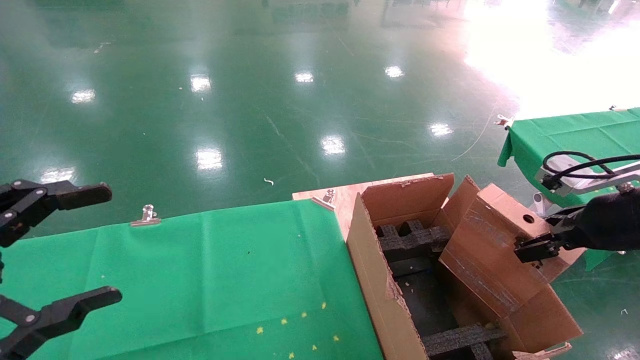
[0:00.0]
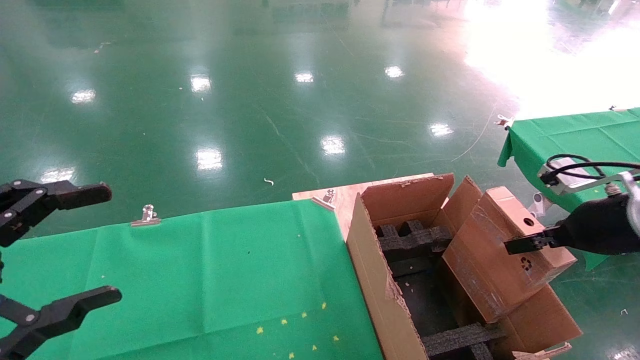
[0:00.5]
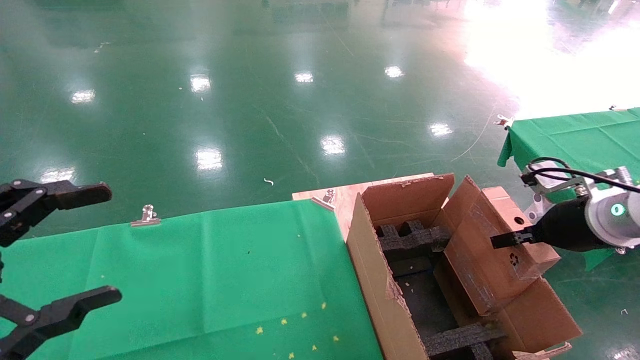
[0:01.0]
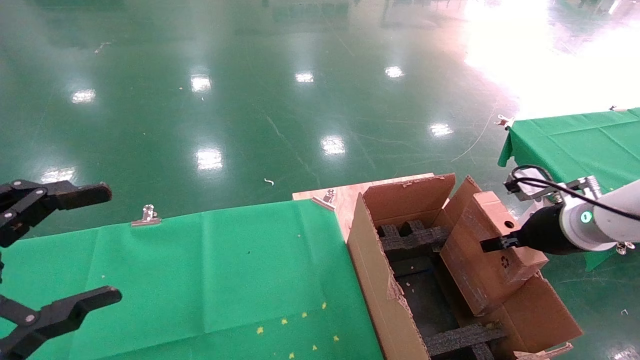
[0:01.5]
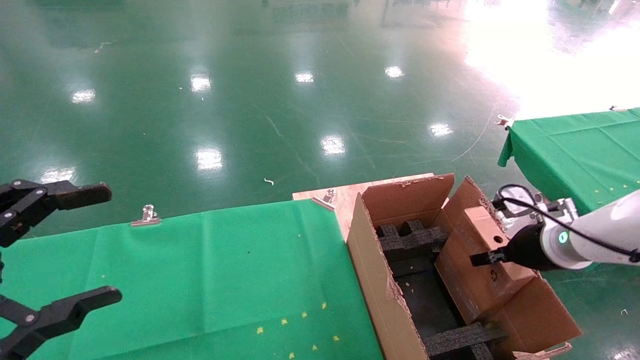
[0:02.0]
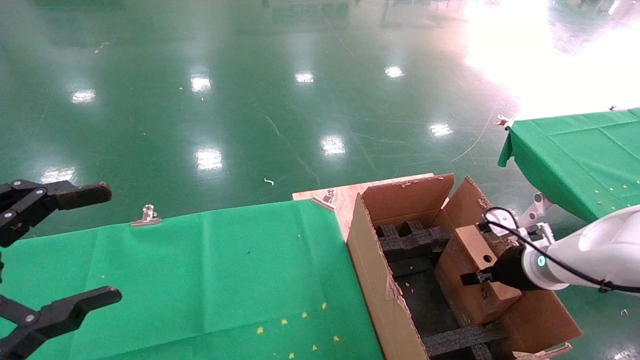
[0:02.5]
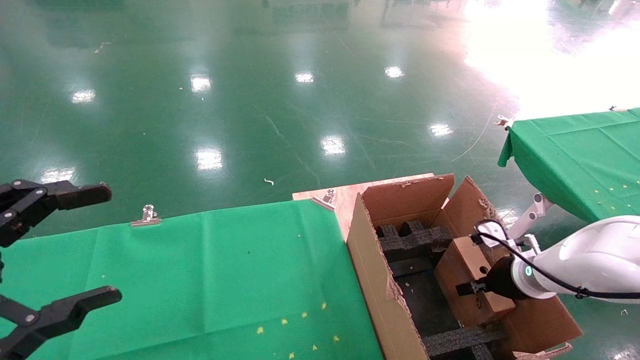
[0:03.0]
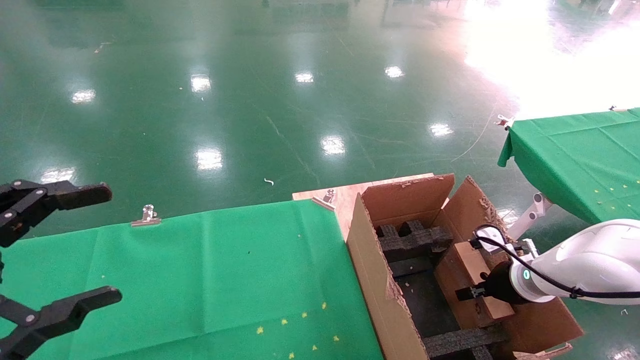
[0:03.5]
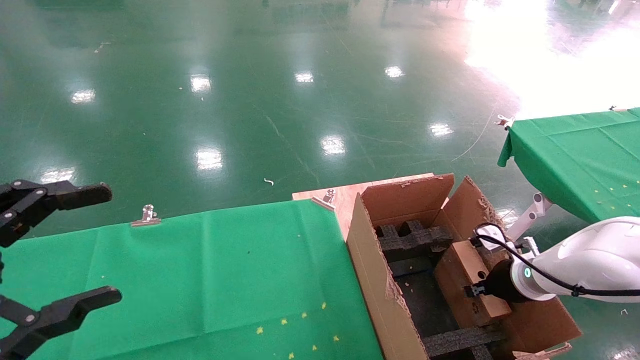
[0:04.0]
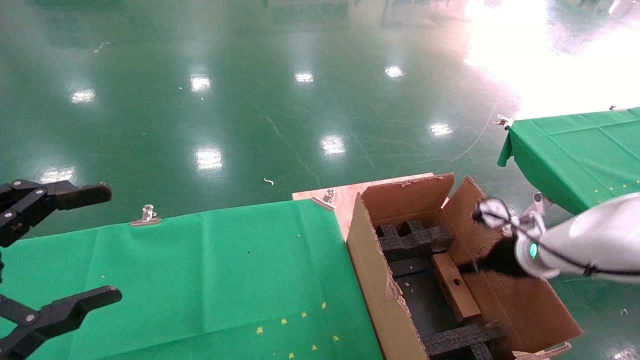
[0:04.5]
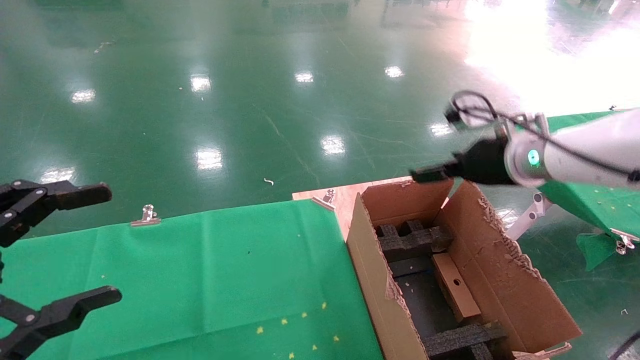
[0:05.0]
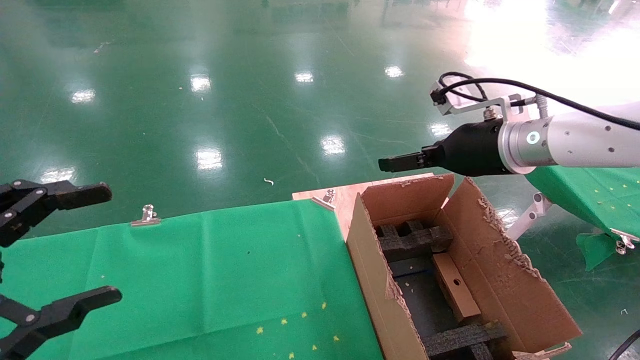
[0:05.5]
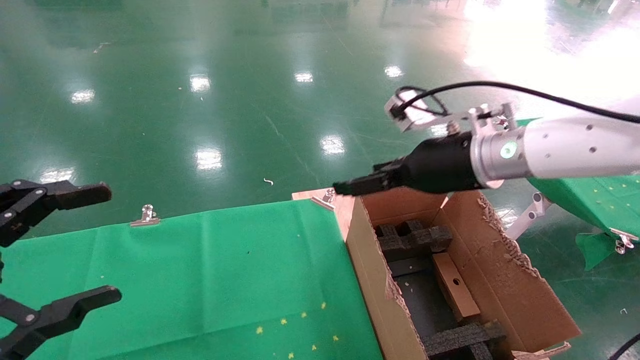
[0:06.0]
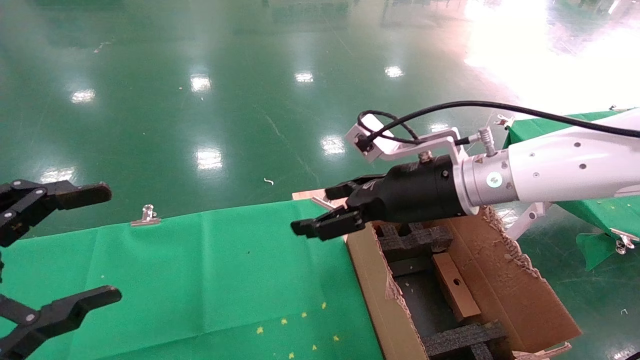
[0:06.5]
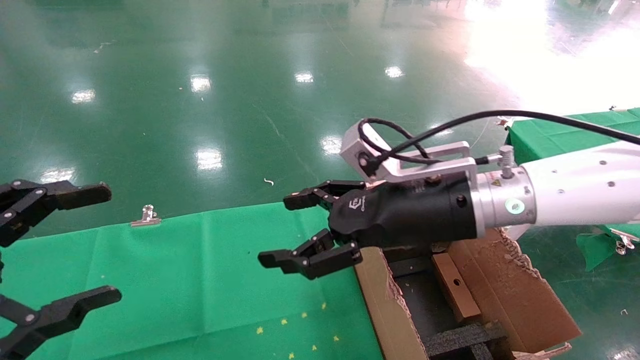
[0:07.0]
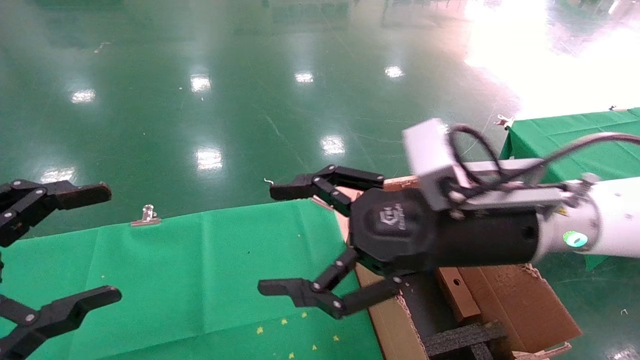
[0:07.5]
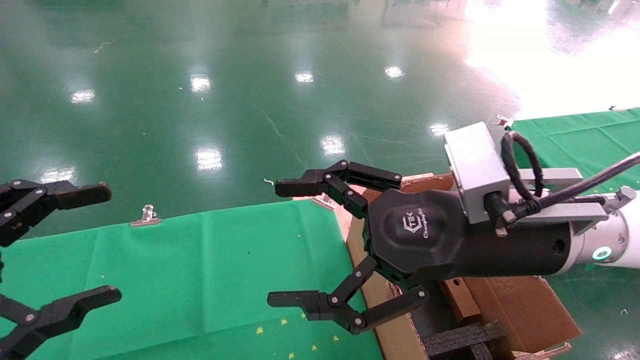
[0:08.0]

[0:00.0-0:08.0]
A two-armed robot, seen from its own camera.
Task of the whole recording: using a robotic arm to pick up a cardboard box and palace it the carton.
Step, 0:00.0 to 0:04.5: Place the mouse and the power cord paper box into the container.
0:00.0 to 0:02.0: The right gripper moves downward and forward, roughly 15 cm.
0:02.0 to 0:04.0: The right gripper is displaced downward by some 10 cm.
0:04.0 to 0:06.0: The right gripper shifts about 25 cm upward and to the left, and opens its fingers.
0:06.0 to 0:08.0: The right gripper is displaced backward by about 10 cm.
